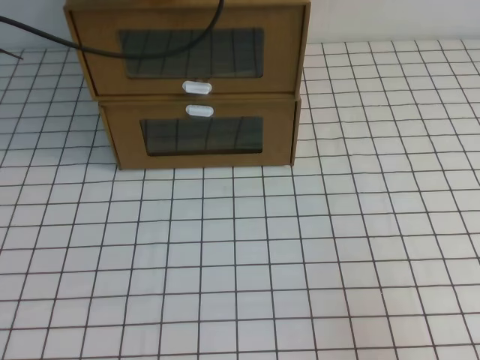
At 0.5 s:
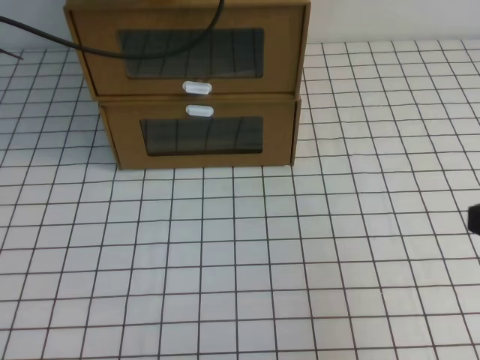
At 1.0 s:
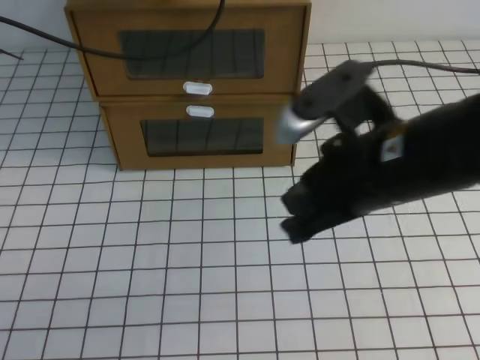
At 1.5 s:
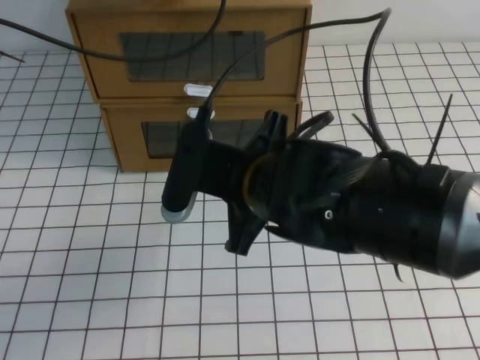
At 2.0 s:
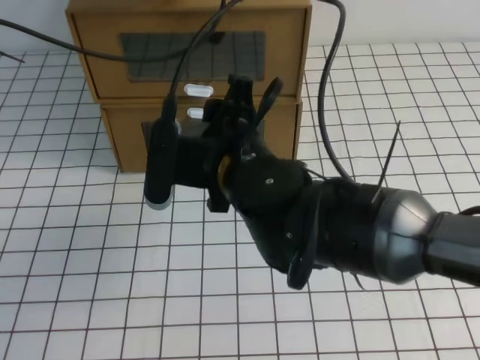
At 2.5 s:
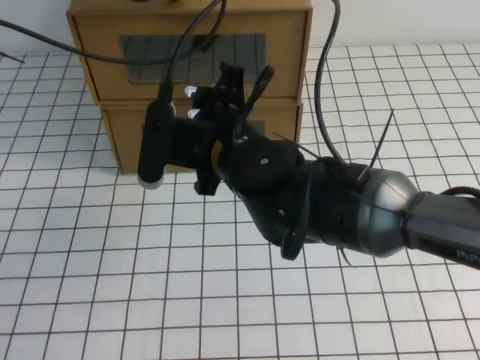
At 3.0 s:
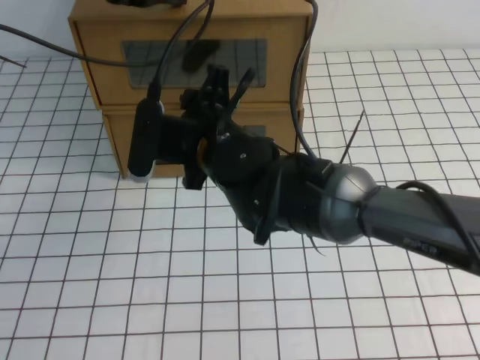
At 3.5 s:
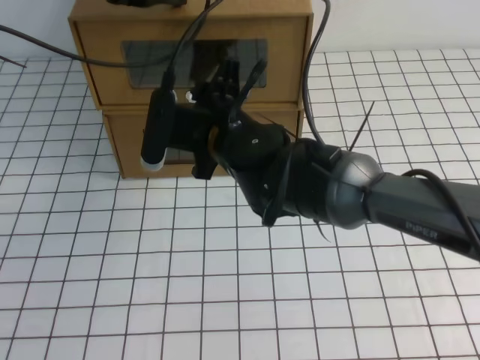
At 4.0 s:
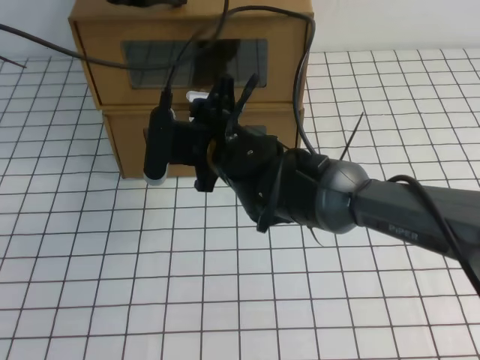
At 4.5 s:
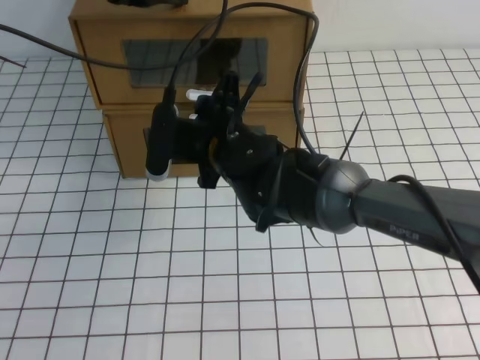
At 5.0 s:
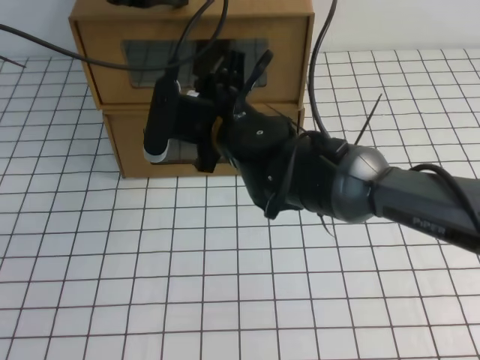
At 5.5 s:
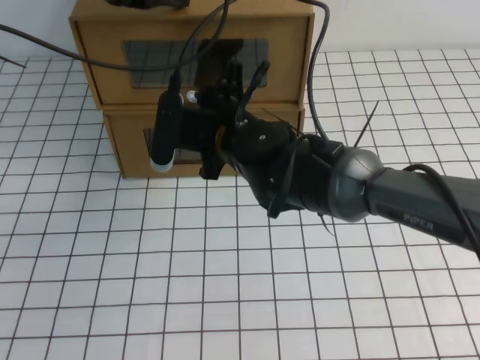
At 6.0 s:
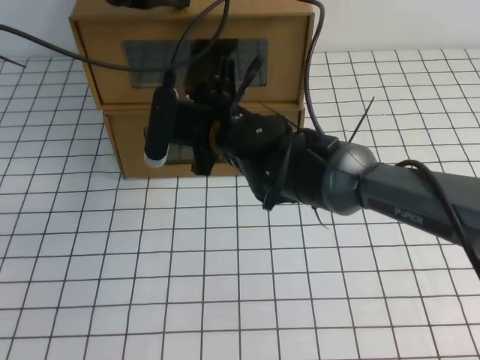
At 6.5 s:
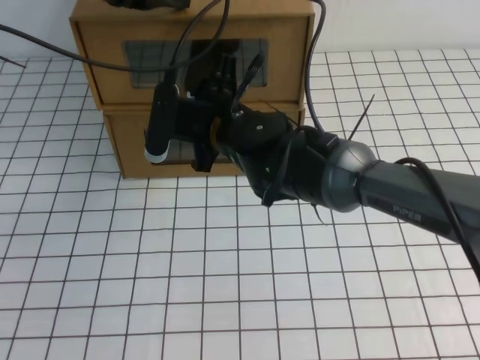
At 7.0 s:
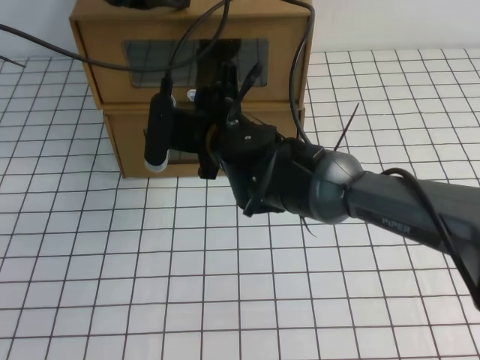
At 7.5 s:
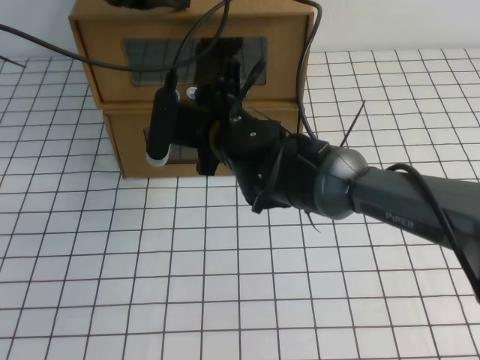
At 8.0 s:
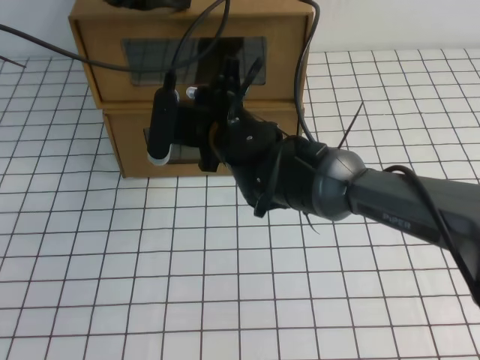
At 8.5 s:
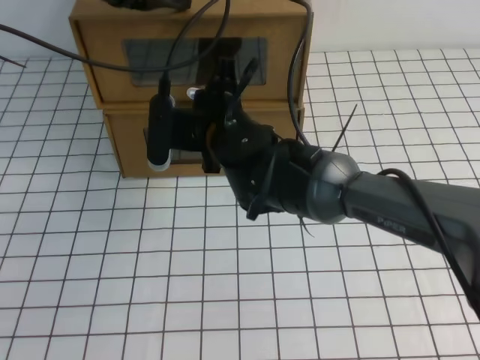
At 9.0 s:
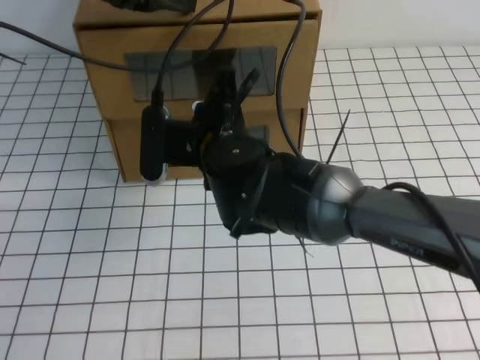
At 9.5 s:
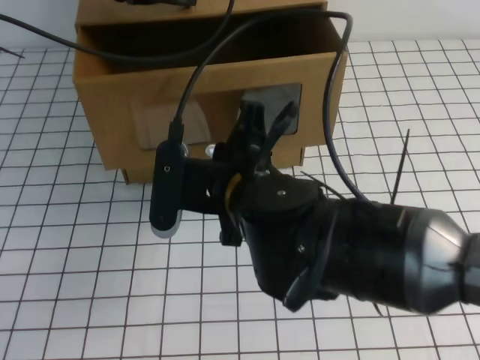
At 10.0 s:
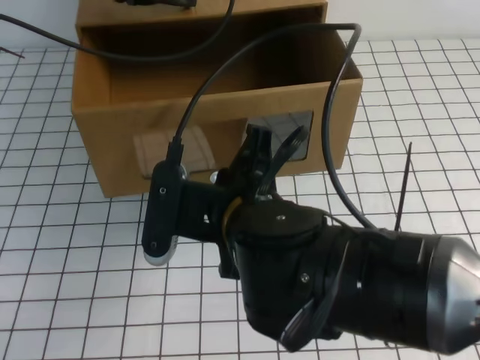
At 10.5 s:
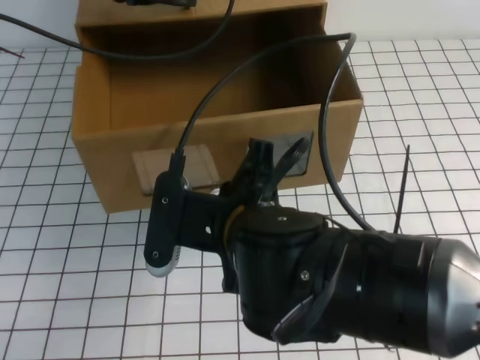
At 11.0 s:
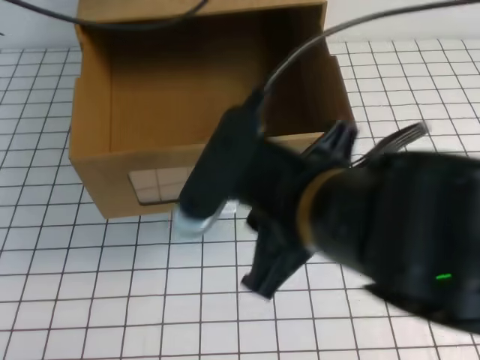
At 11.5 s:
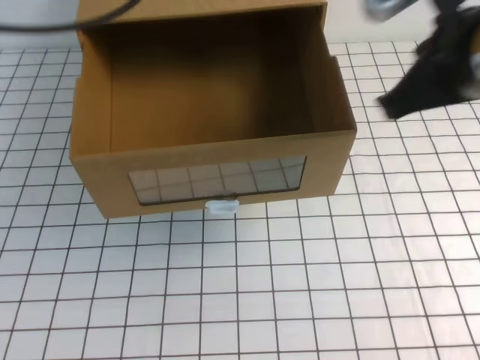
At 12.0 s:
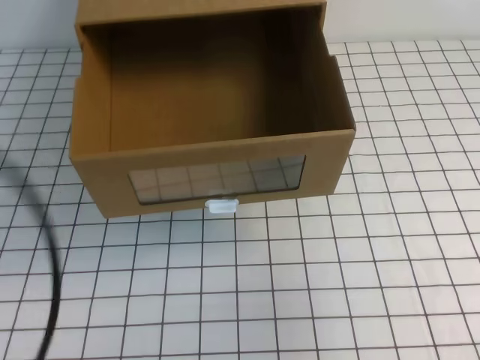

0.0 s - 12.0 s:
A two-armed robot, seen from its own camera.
Task of the whole recording: open the shoebox on the white tablecloth.
0.0 s - 2.0 s: The right gripper is displaced to the left and forward by approximately 35 cm, and opens up.
2.0 s - 4.0 s: The right gripper heads forward, covering some 10 cm.
4.0 s - 6.0 s: There are only small adjustments of the grippers.
6.0 s - 8.0 s: The right gripper closes its fingers.
8.0 s - 10.0 s: The right gripper heads backward, covering roughly 15 cm.
10.0 s - 12.0 s: The right gripper is displaced to the right and upward by some 30 cm, and opens and closes again. The left gripper travels backward by roughly 25 cm.

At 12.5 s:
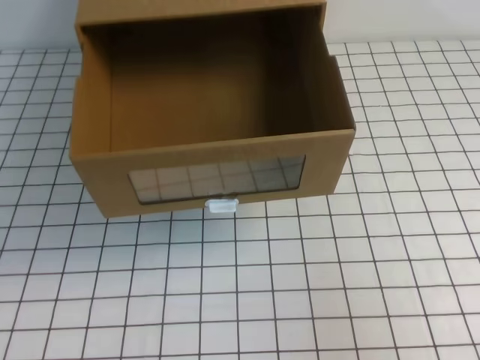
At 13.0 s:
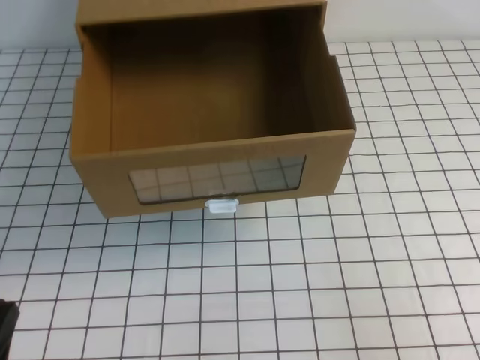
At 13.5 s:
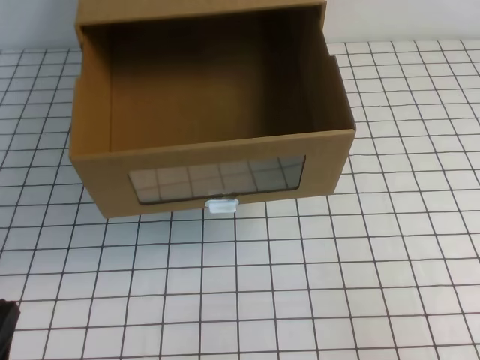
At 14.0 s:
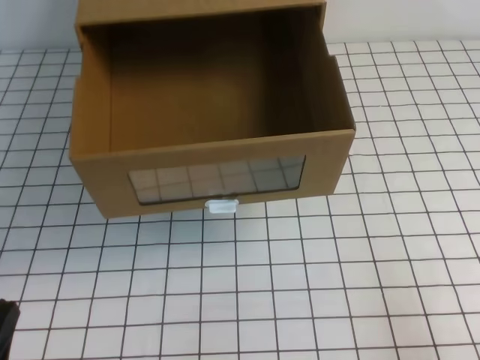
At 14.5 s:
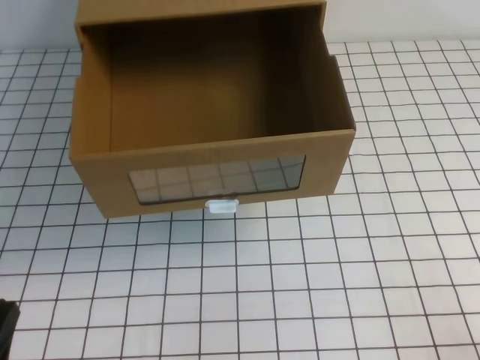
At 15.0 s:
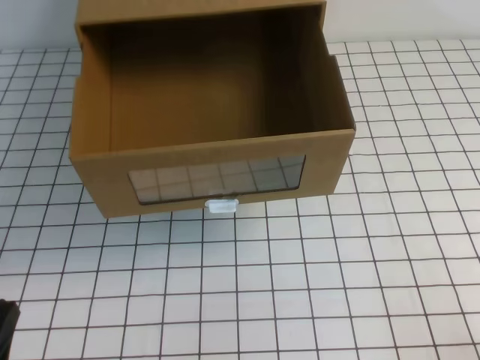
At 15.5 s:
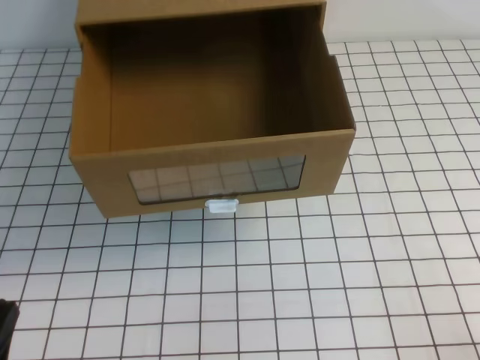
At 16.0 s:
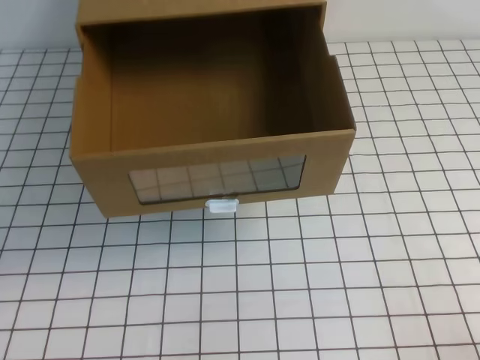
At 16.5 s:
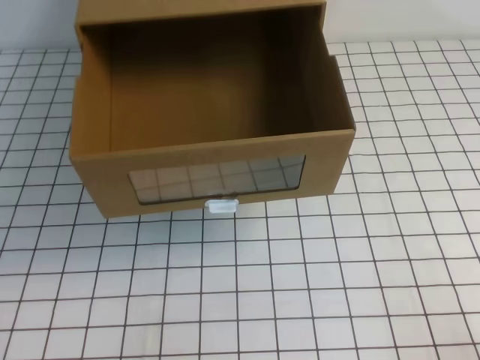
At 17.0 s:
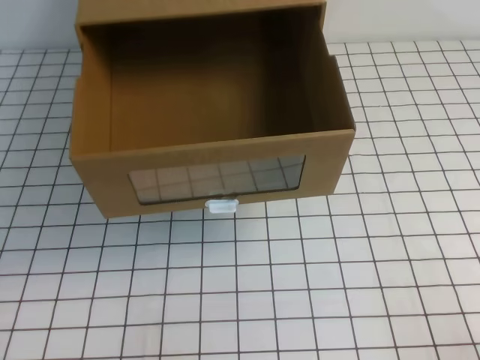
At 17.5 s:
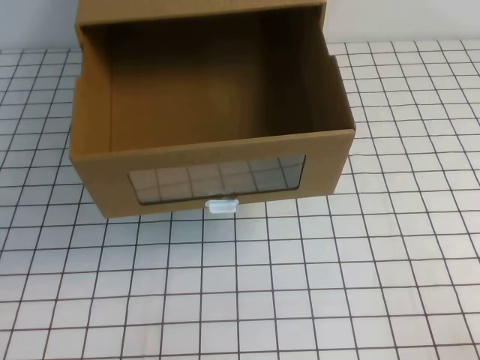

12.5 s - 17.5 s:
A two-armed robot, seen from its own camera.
Task of the whole recording: open the shoebox on the white tablecloth.
12.5 s - 15.0 s: The grippers both shift downward by about 15 cm.

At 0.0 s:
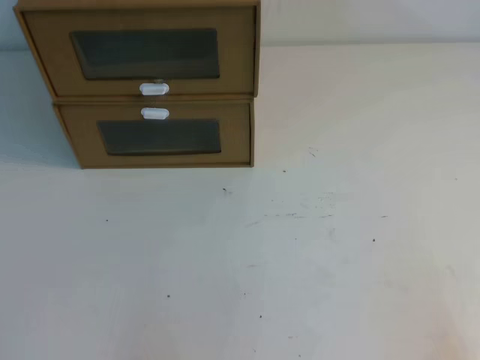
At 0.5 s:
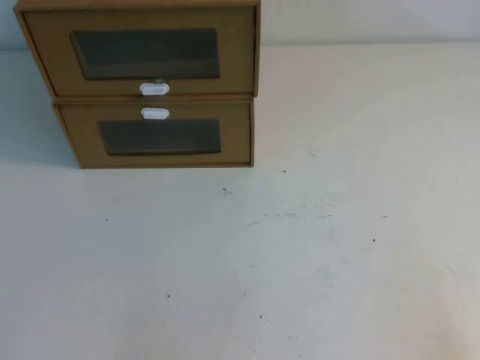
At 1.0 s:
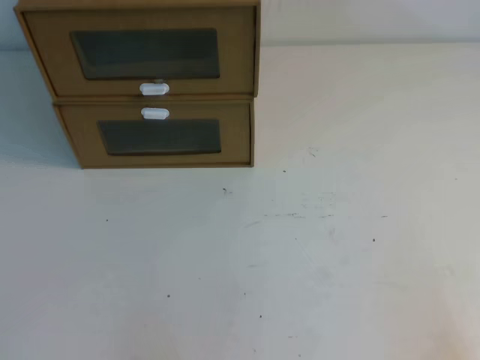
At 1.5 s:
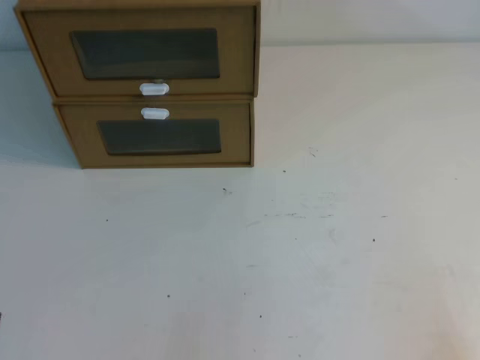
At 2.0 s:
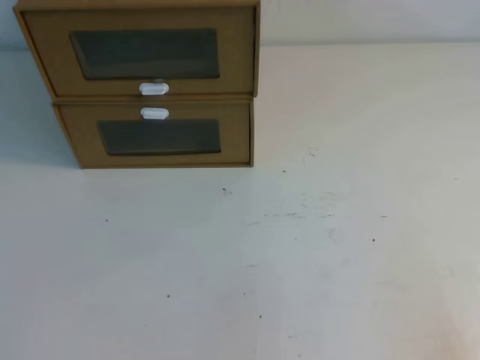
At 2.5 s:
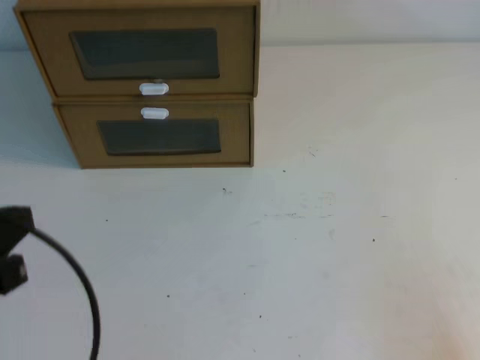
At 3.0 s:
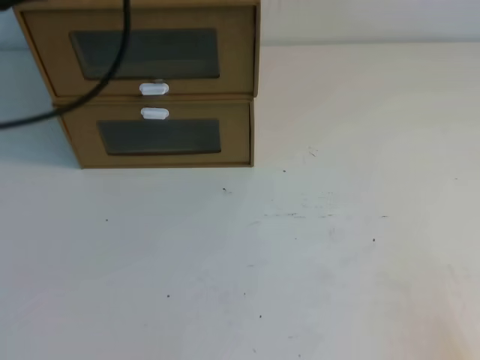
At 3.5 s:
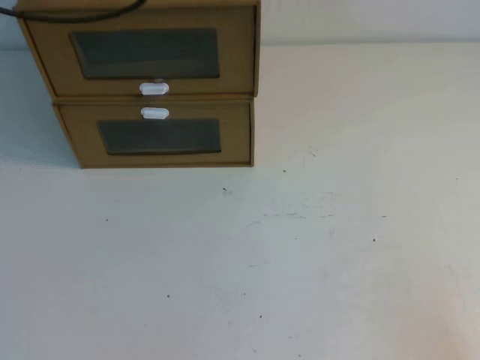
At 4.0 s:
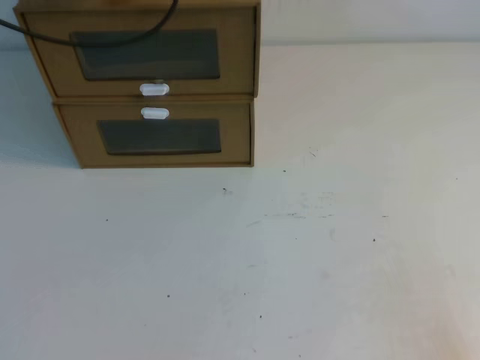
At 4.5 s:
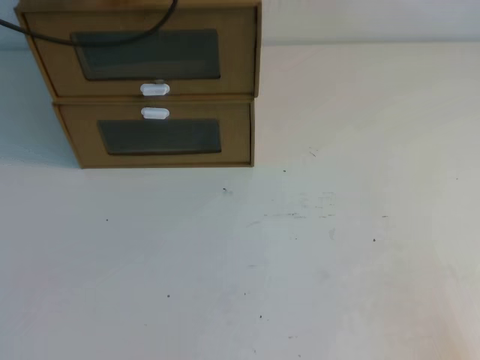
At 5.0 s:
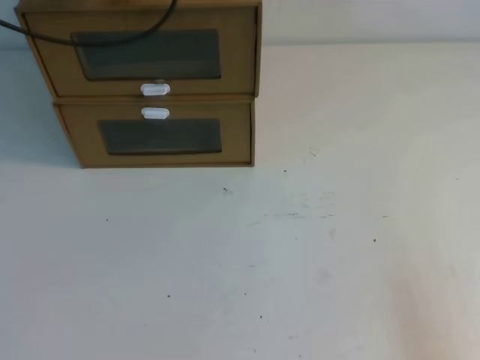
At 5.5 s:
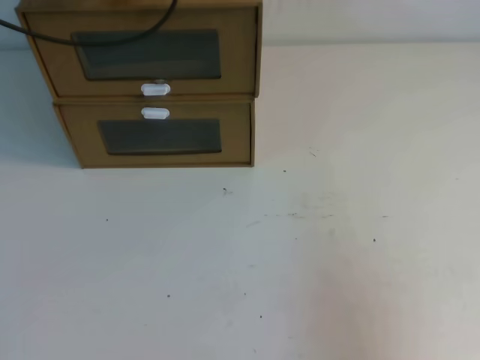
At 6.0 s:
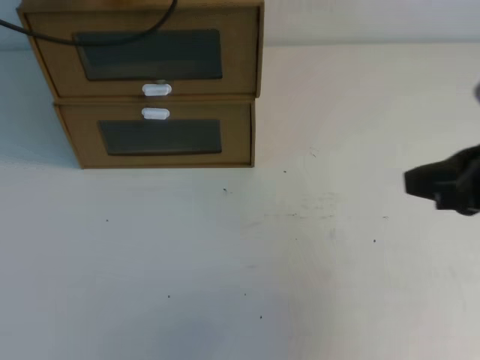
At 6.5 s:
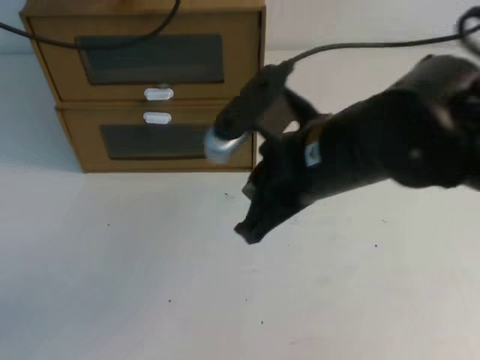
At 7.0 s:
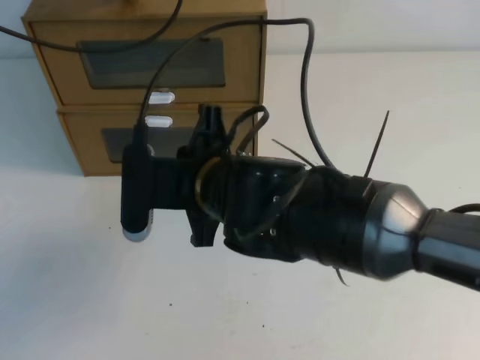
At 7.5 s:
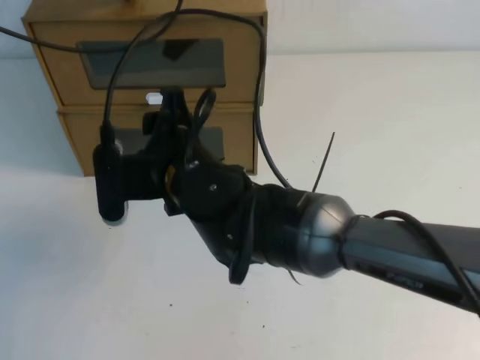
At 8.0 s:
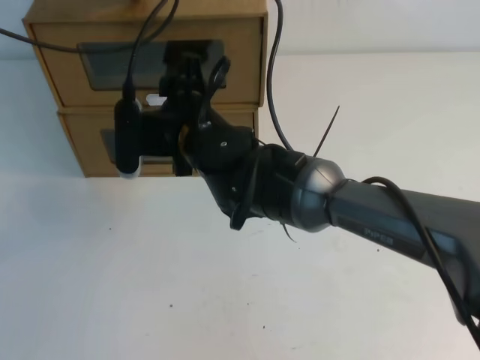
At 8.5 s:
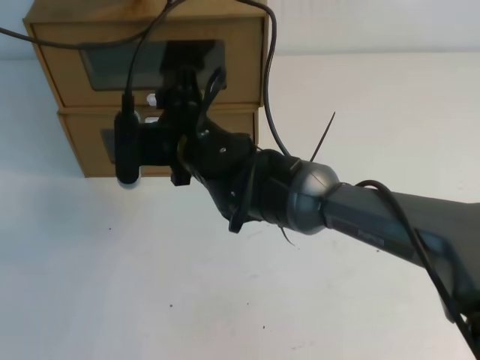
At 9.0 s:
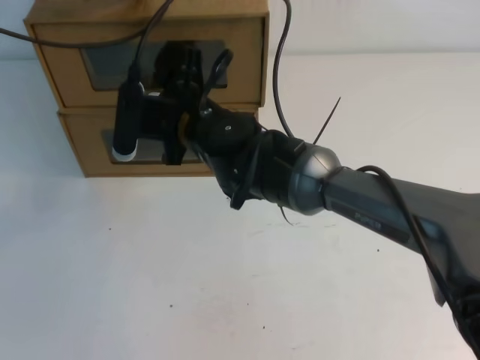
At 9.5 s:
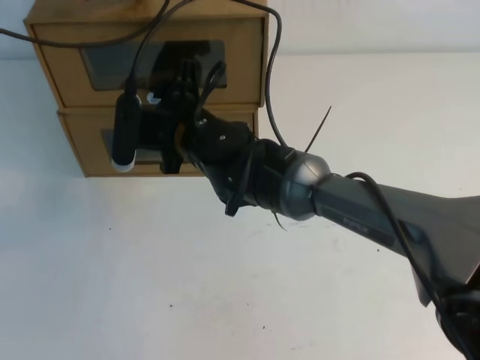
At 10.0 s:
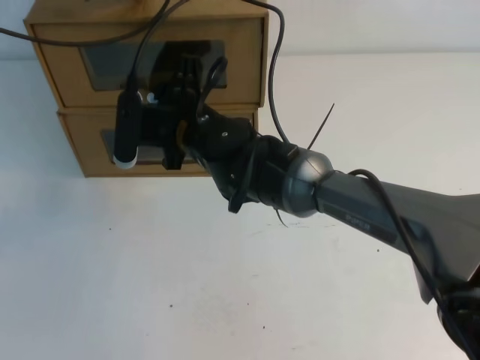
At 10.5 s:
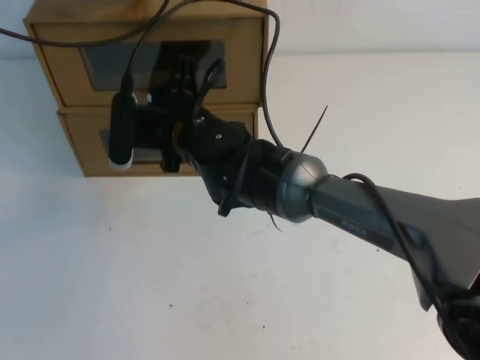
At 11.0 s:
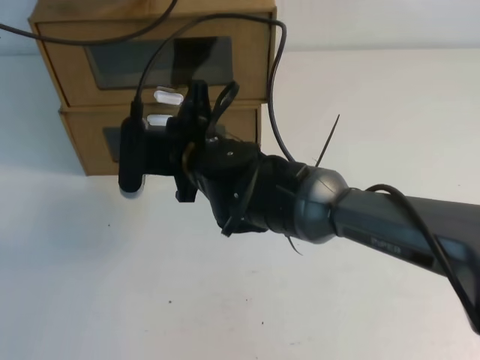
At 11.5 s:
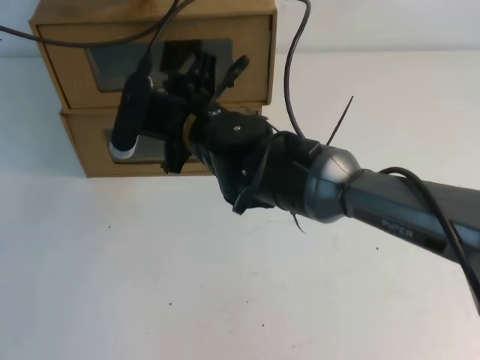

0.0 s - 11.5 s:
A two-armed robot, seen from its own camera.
Task of the whole recording: open the shoebox on the table.
4.0 s - 6.0 s: The right gripper heads upward, forward and to the left, covering about 20 cm.
6.0 s - 7.5 s: The right gripper heads to the left, covering about 30 cm, and opens its fingers.
7.5 s - 9.5 s: The right gripper shifts some 10 cm forward.
9.5 s - 11.5 s: The right gripper closes.
